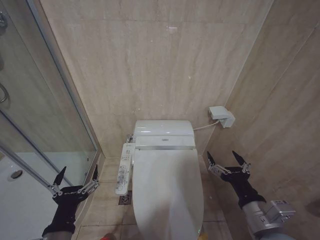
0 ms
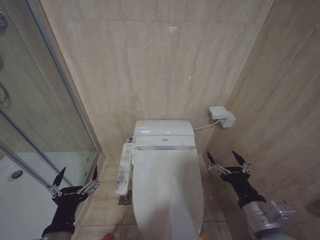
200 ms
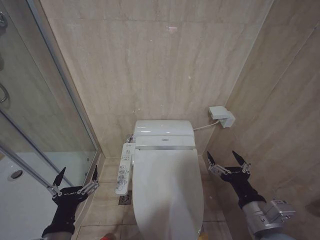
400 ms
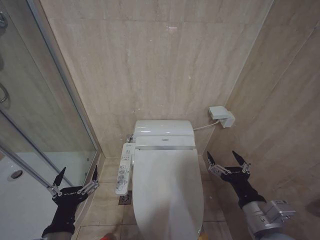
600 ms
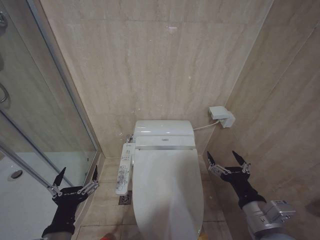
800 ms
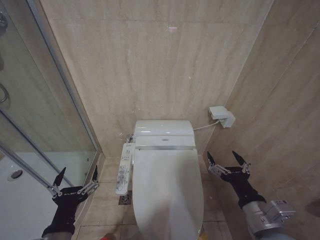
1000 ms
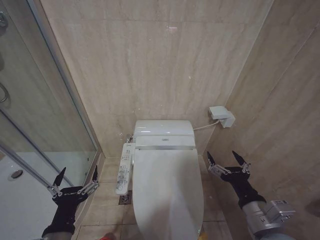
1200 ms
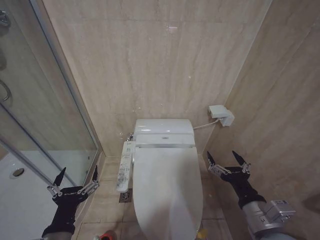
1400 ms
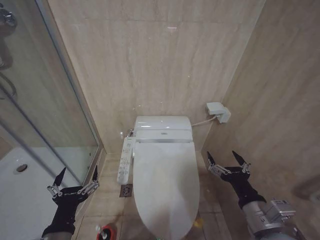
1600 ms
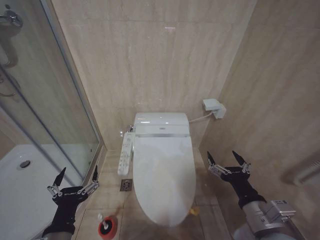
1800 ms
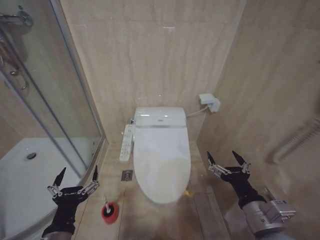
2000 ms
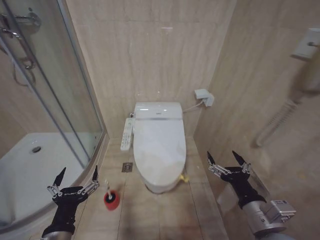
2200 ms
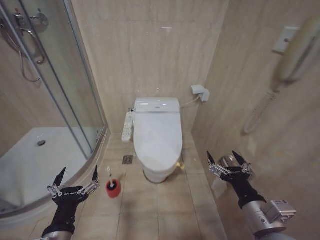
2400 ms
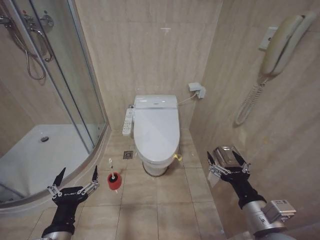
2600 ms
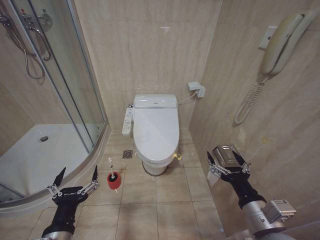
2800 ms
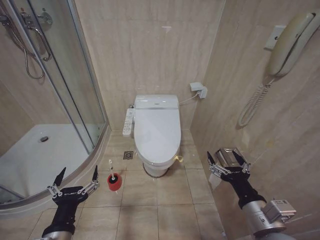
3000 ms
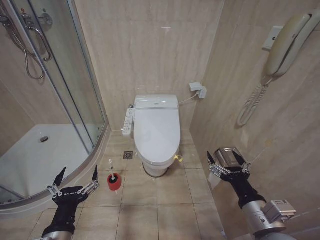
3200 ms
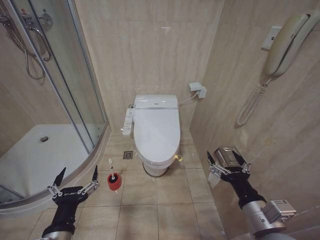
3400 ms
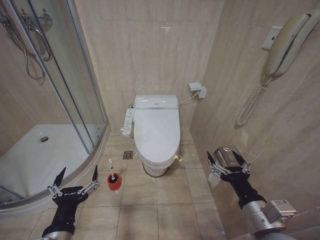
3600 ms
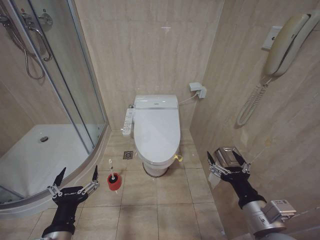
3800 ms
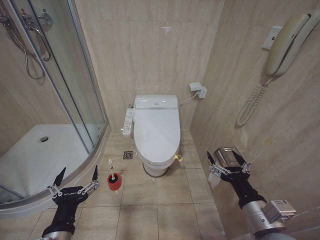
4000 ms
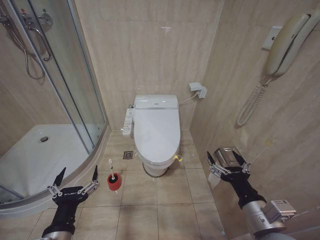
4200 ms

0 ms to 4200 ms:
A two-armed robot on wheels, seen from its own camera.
Task of the whole recording: Open the toilet lid, clean the toilet bowl with a toilet brush, close the toilet lid, and flush.
0 ms to 1400 ms: Neither gripper changes place.
2800 ms to 4200 ms: Neither gripper changes place.

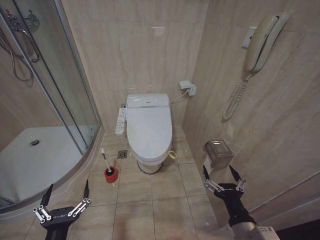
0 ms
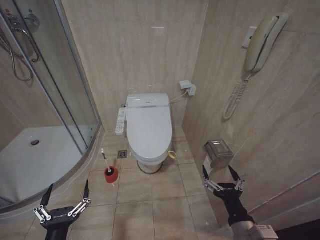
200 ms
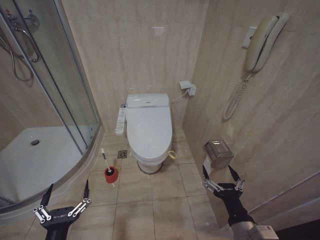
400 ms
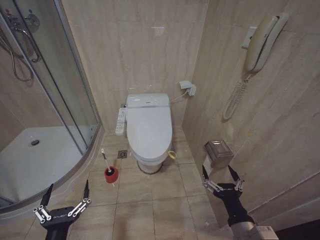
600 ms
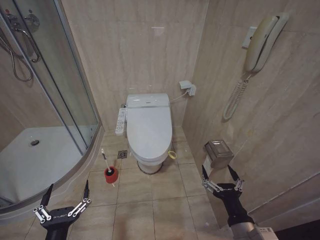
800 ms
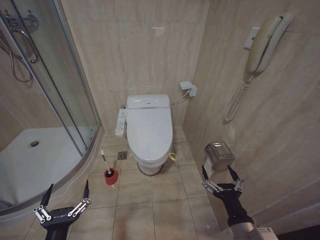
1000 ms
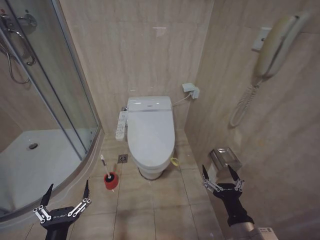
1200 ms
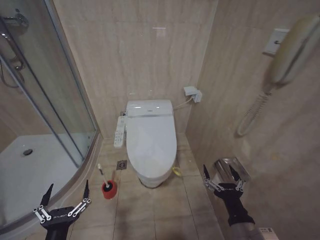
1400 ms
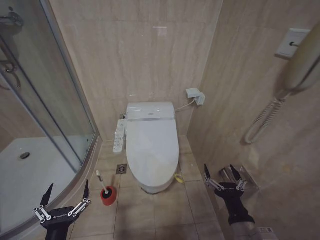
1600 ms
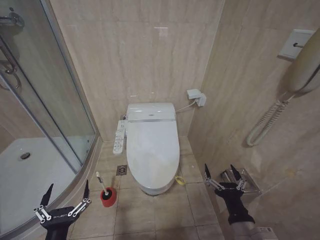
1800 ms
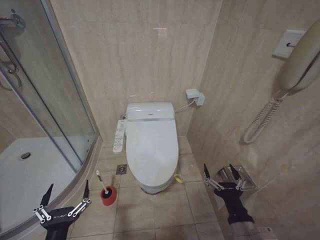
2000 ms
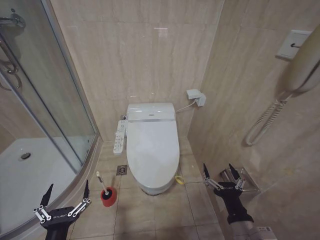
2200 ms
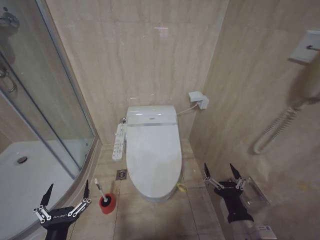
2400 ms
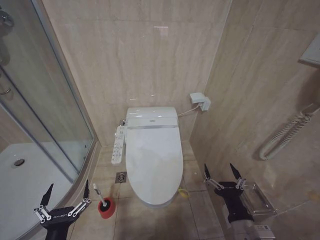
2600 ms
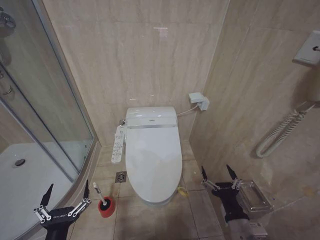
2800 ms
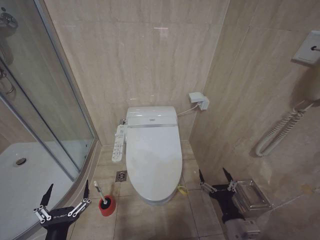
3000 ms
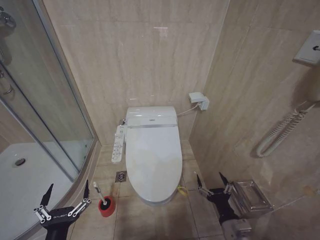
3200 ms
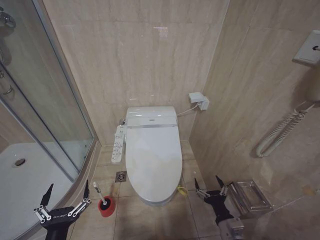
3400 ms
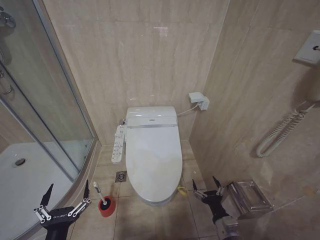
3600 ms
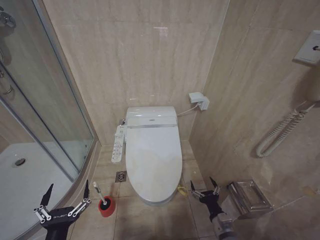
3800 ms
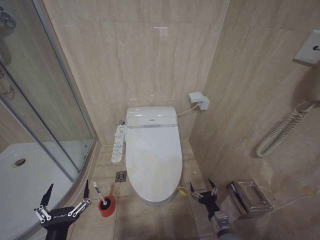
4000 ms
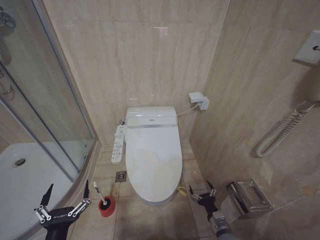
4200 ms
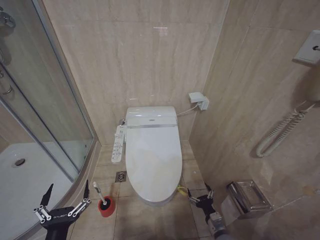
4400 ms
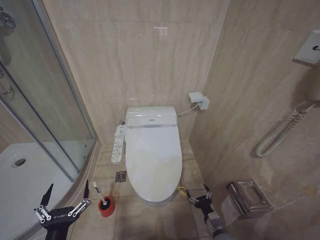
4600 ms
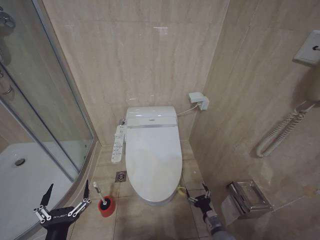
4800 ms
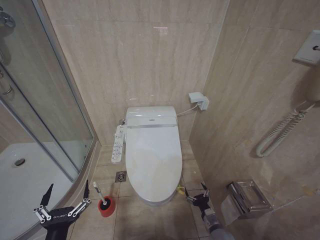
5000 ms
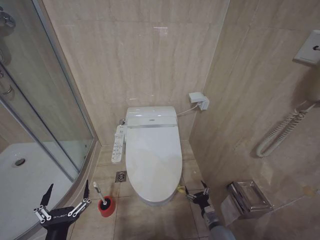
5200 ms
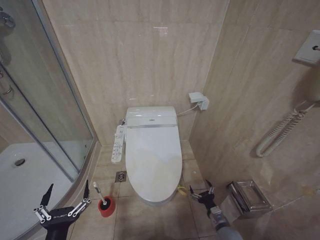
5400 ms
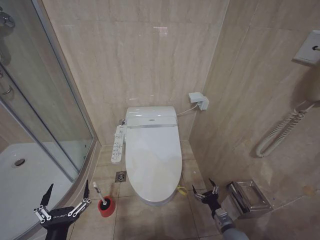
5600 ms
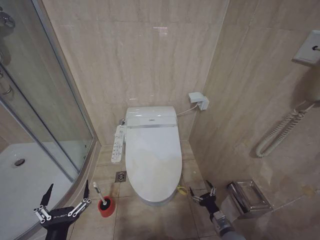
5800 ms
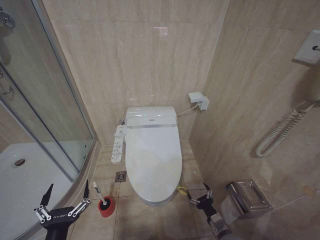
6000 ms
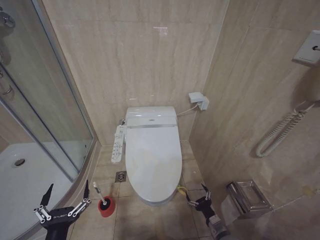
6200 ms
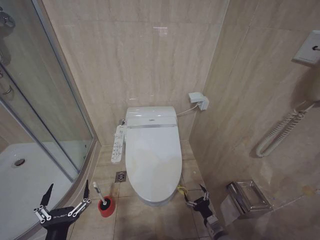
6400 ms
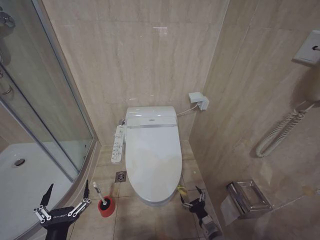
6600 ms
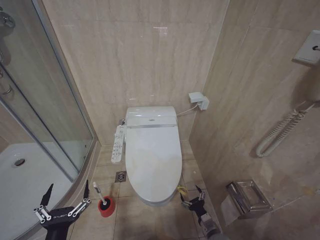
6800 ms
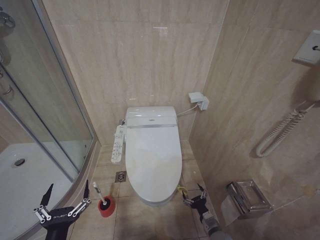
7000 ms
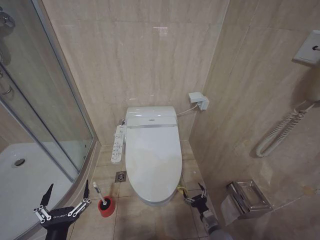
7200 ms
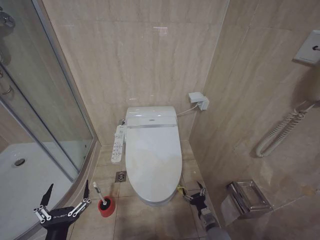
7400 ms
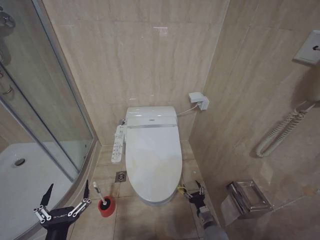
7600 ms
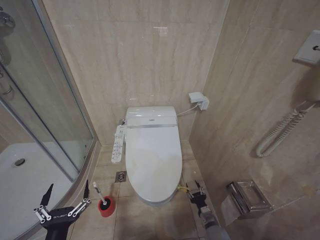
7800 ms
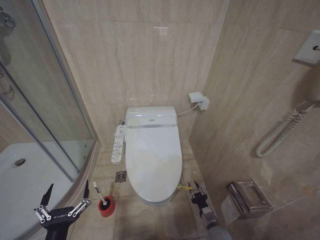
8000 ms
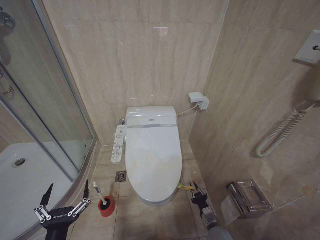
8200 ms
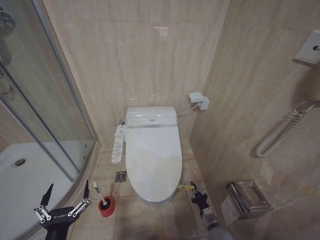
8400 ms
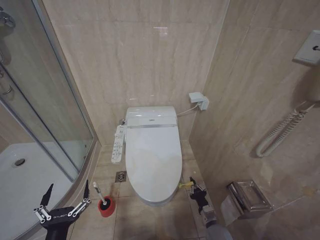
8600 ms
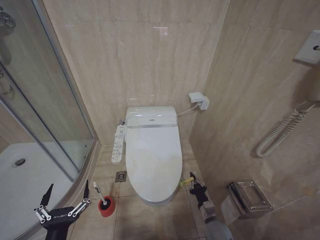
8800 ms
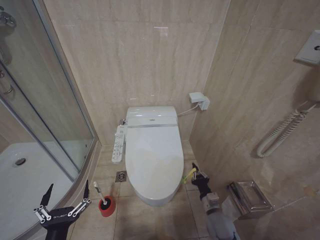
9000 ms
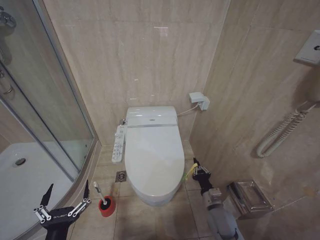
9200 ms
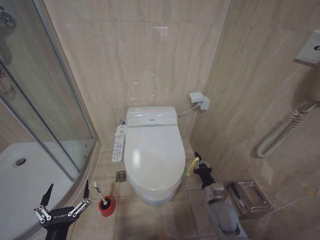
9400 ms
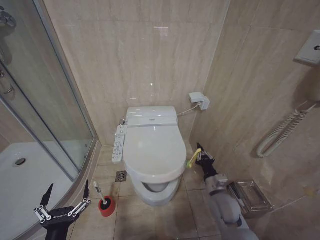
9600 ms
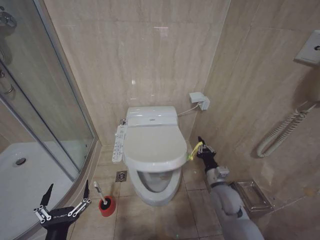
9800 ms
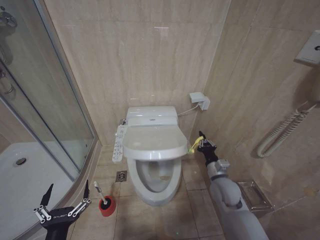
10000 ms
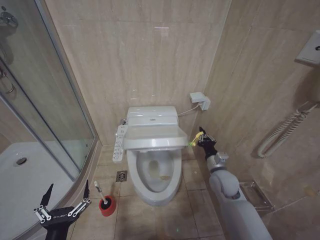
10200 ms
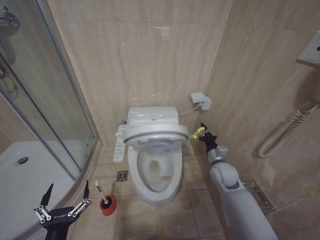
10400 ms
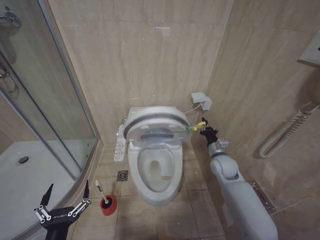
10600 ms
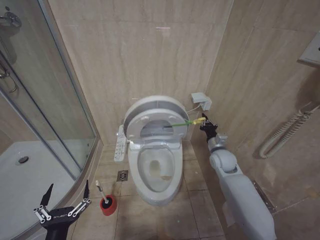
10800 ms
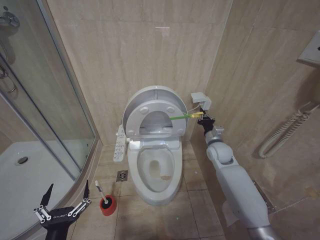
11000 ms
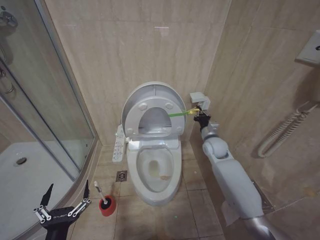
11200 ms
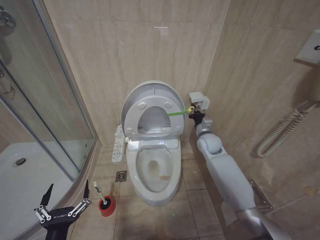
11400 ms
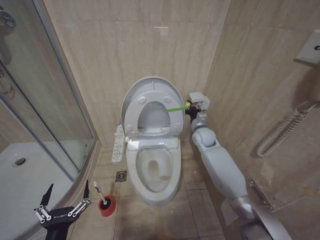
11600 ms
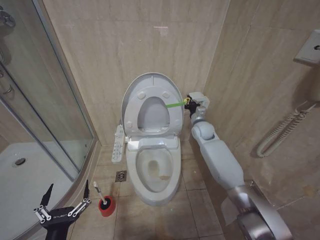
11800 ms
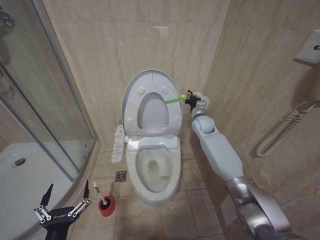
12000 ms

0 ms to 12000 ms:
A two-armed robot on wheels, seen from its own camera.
Task of the whole recording: Open the toilet lid, clean the toilet bowl with a toilet brush, close the toilet lid, and flush.
1600 ms to 3000 ms: The grippers move only a little.
3000 ms to 4400 ms: The right gripper moves downward, about 15 cm.
6000 ms to 7600 ms: The right gripper shifts some 5 cm downward.
7600 ms to 9000 ms: The right gripper moves upward, about 10 cm, and closes up.
9000 ms to 10400 ms: The right gripper heads upward and forward, covering about 20 cm.
10400 ms to 12000 ms: The right gripper is displaced forward and upward by roughly 20 cm.

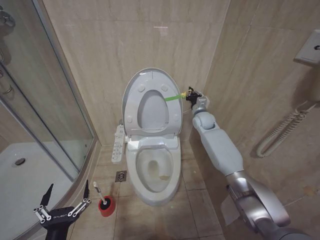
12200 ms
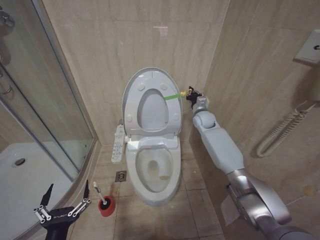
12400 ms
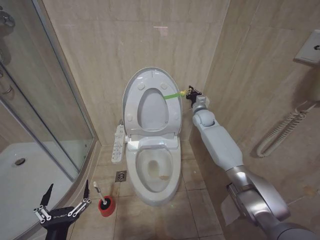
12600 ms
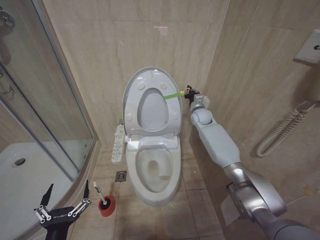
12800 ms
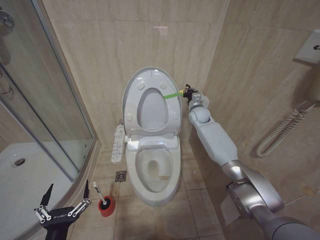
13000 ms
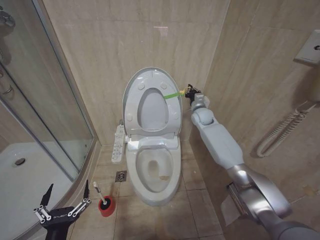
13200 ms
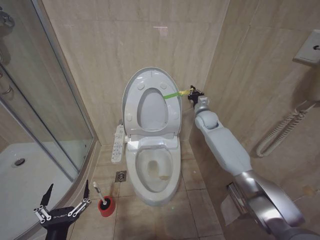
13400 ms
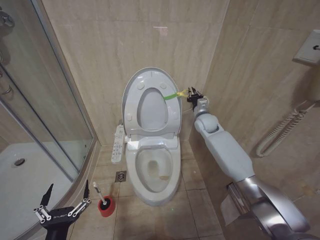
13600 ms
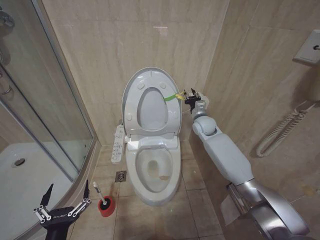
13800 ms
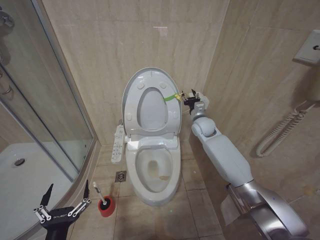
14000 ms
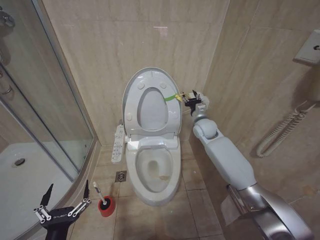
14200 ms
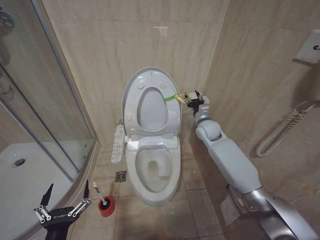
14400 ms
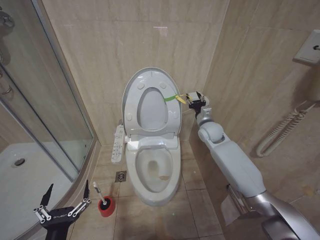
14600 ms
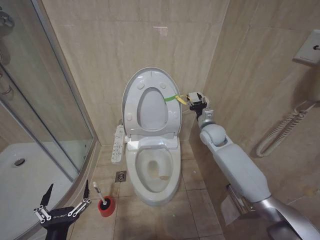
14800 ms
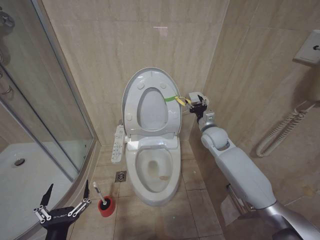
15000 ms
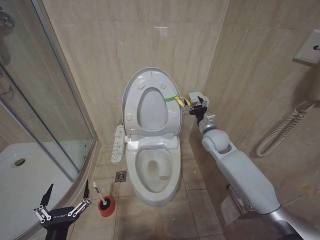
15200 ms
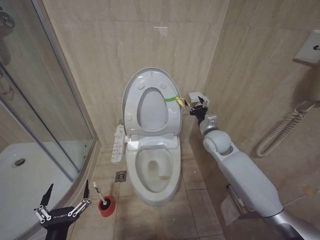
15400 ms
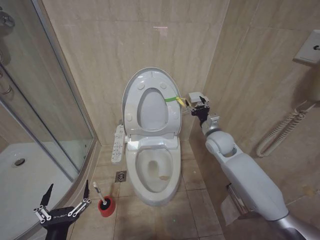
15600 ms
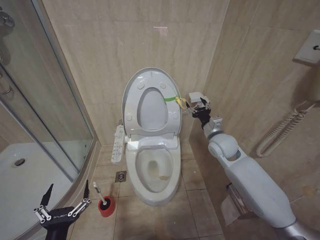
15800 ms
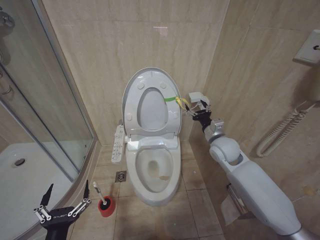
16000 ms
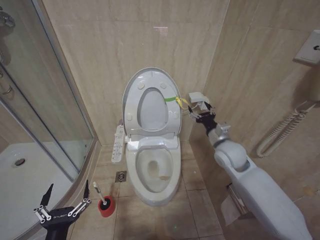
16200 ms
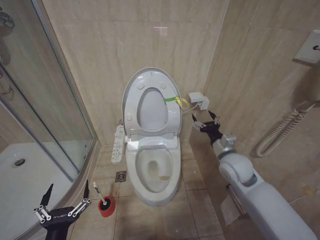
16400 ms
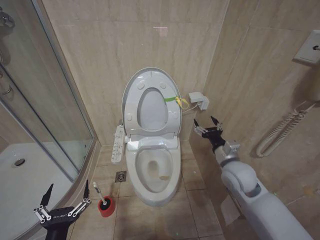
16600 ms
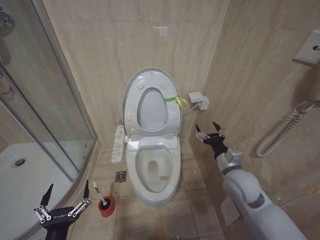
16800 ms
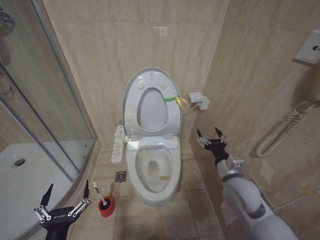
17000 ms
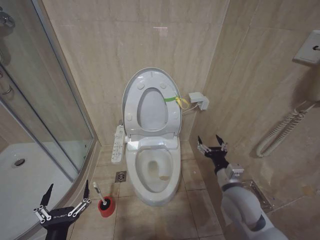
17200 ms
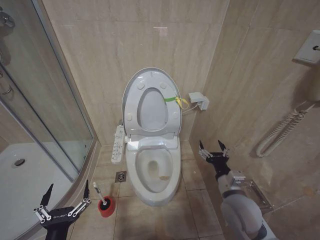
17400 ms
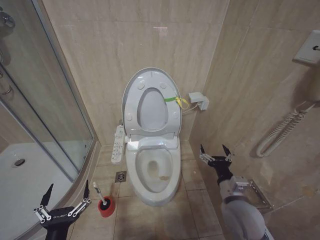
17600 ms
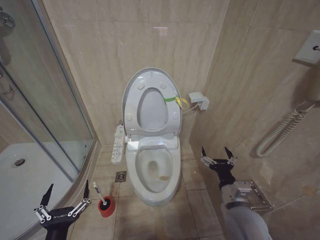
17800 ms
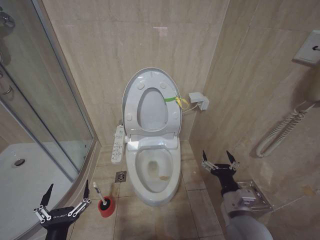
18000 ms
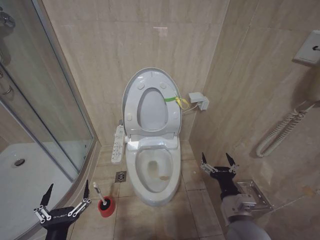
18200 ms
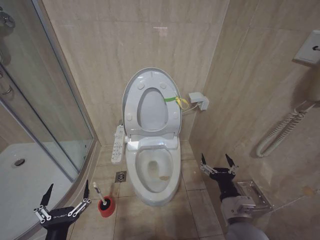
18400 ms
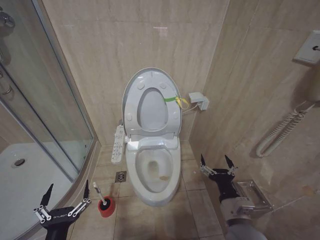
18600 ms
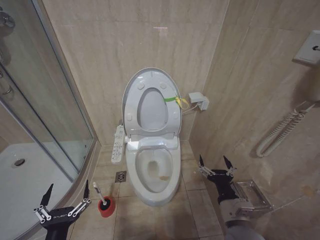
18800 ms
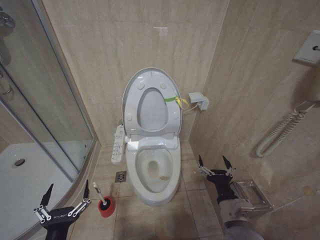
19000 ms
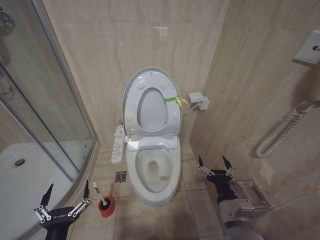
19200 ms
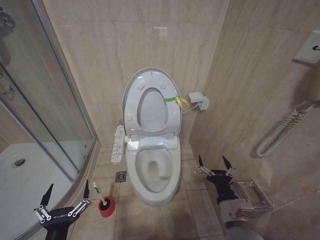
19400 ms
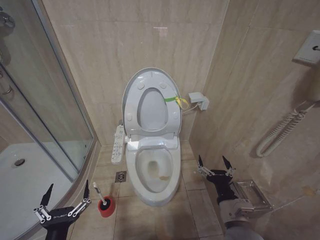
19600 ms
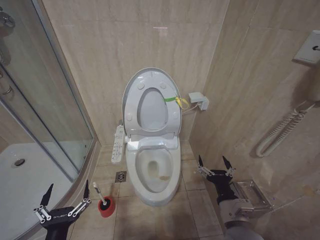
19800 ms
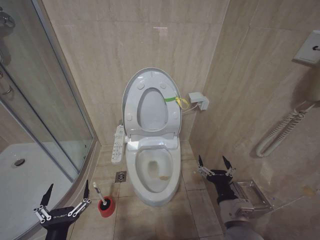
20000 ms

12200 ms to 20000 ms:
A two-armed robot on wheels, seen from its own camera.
Task of the whole recording: Open the toilet lid, clean the toilet bowl with a toilet brush, close the toilet lid, and flush.
12200 ms to 13800 ms: The grippers make only small movements.
13800 ms to 15400 ms: The right gripper moves backward, roughly 10 cm, and opens its fingers.
15400 ms to 16800 ms: The right gripper heads backward, covering some 15 cm.
16800 ms to 18400 ms: The right gripper moves backward and downward, roughly 15 cm.
